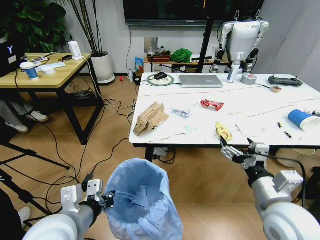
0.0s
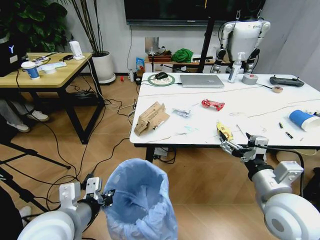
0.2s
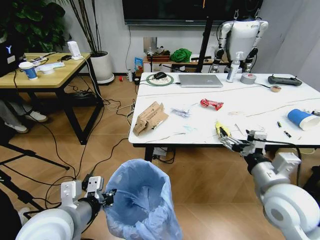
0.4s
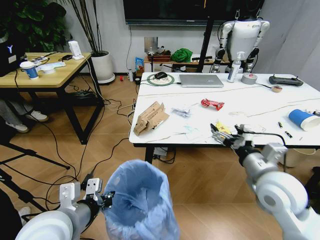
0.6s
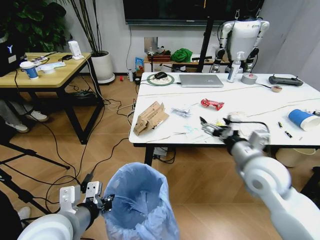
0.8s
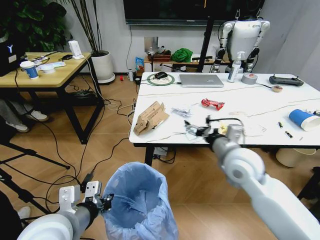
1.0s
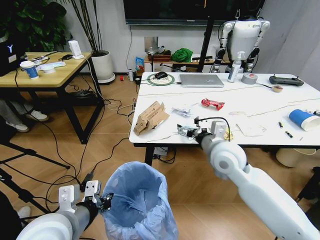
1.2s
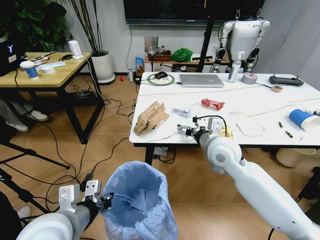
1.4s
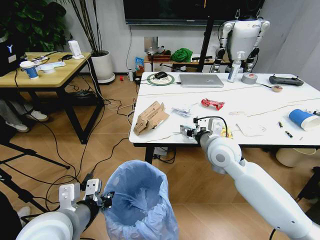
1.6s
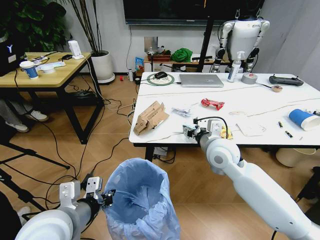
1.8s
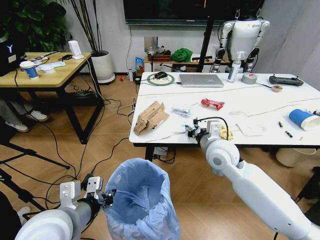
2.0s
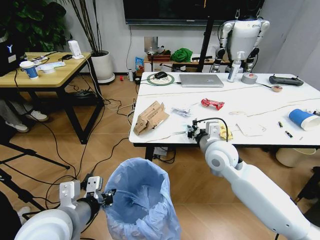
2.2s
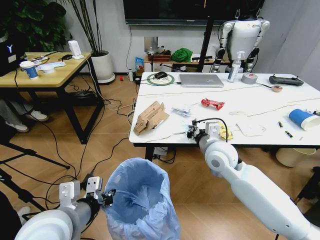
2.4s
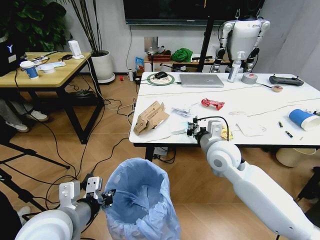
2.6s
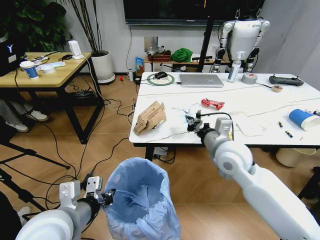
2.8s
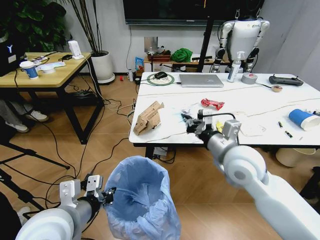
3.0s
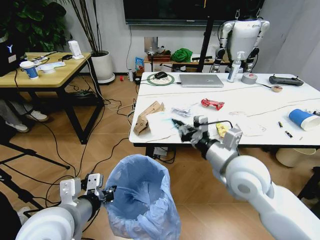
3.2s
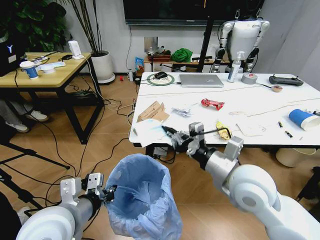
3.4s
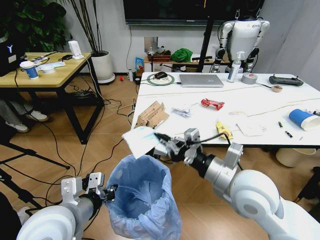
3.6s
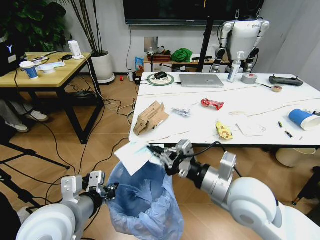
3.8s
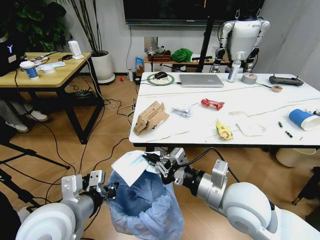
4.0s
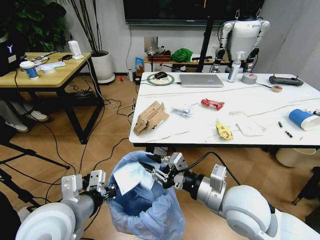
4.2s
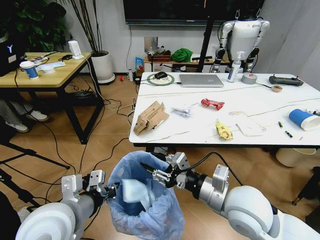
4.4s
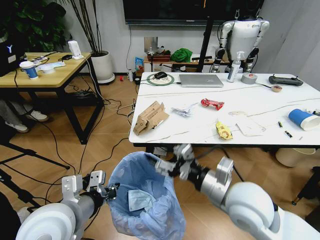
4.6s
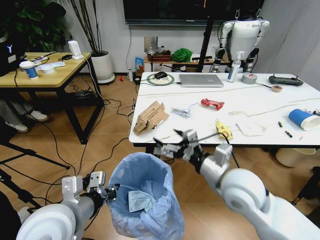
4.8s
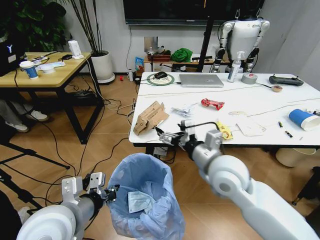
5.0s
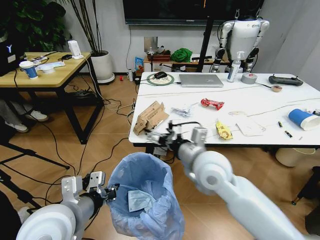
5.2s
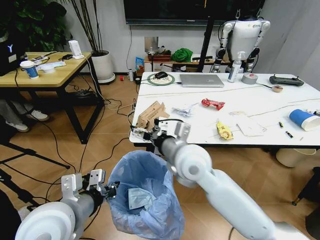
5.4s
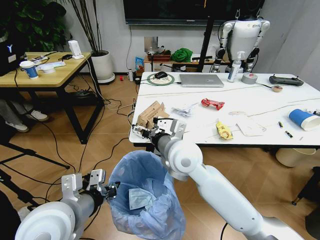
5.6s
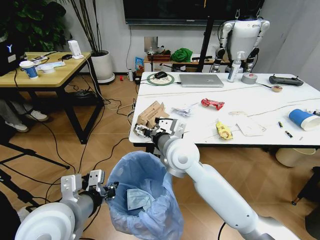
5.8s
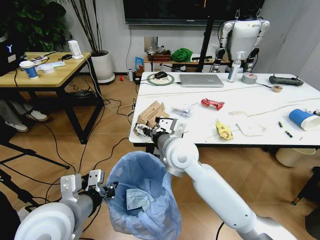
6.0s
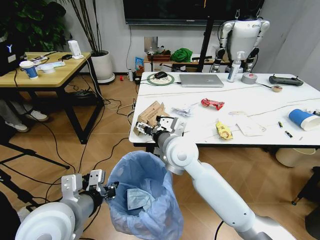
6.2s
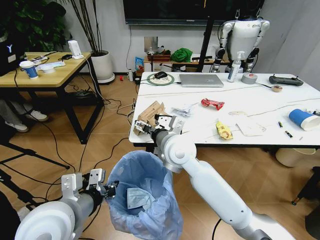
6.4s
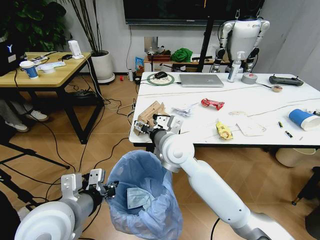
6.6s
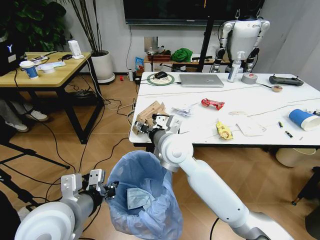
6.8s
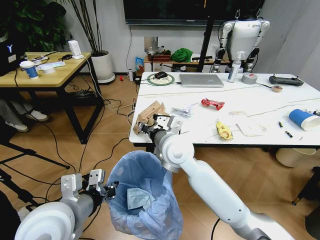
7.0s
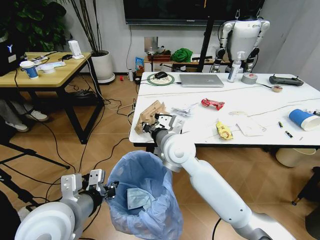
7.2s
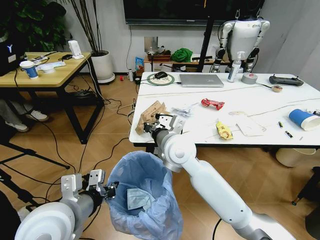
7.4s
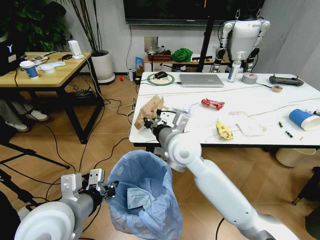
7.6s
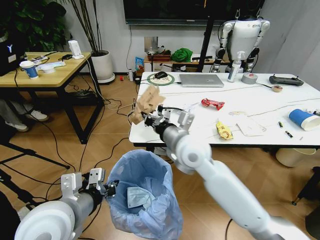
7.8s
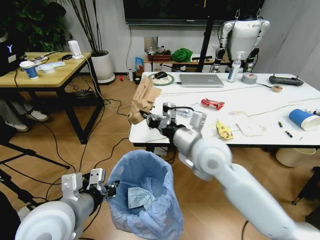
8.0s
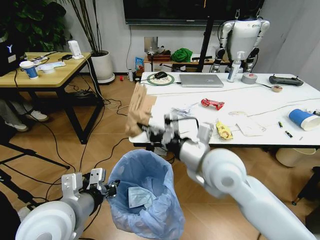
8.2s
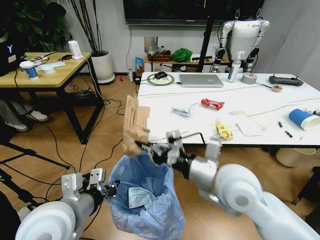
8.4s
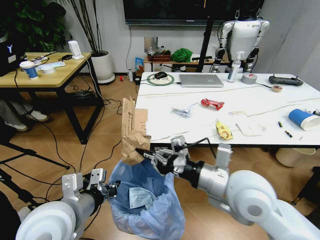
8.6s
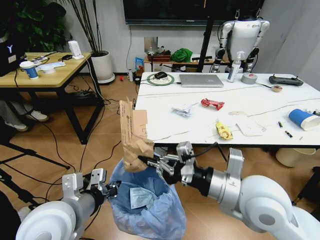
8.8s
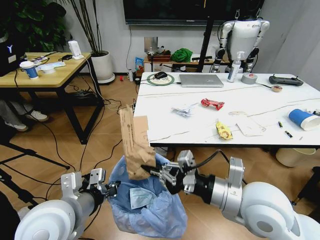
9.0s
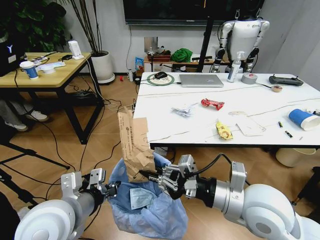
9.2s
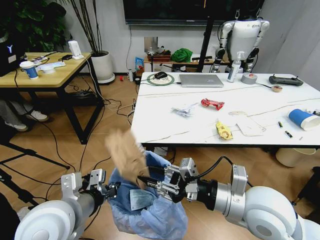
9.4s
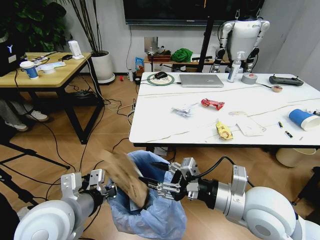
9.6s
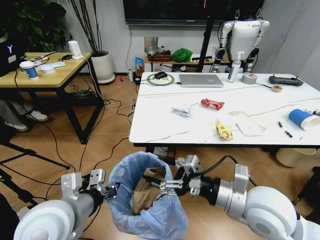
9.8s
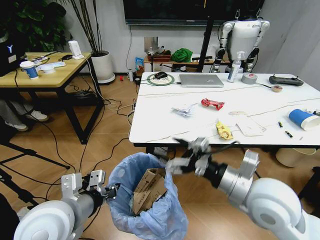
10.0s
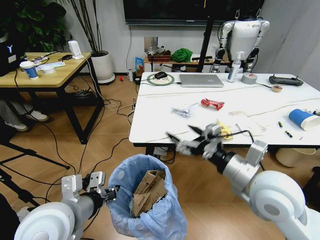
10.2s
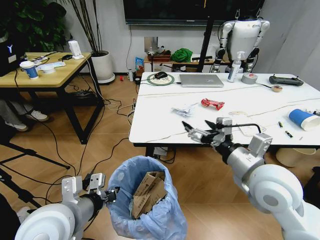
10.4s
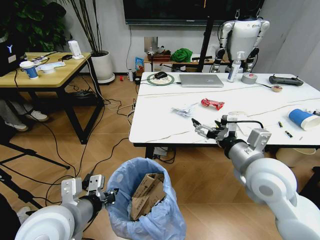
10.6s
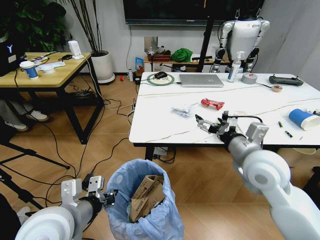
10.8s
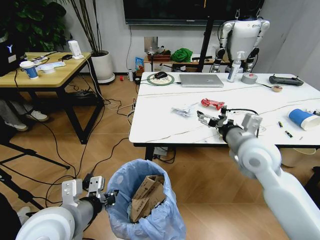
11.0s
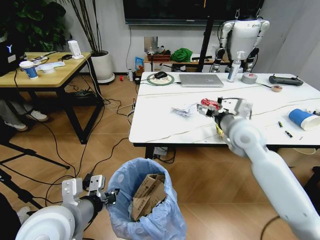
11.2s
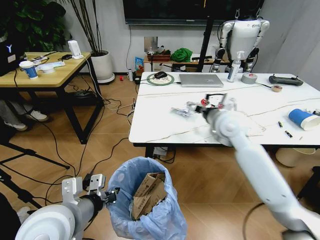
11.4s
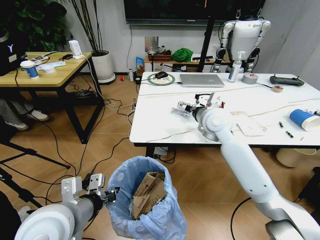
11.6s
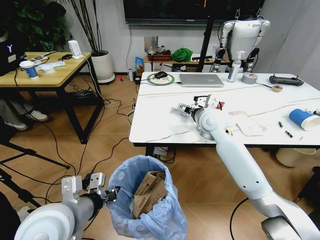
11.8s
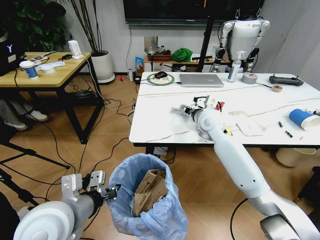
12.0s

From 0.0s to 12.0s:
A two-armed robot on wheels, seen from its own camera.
Task of the whole recording: Pick up the trash bin and place the trash from the table into it.
From 0.0s to 1.6s: The right gripper is displaced forward and to the left by some 20 cm.
From 1.6s to 3.0s: The right gripper heads backward, covering approximately 5 cm, and closes.
From 3.0s to 4.4s: The right gripper heads backward, covering about 10 cm, and opens its fingers.
From 4.4s to 6.0s: The right gripper goes approximately 20 cm forward and to the left, and opens.
From 6.0s to 7.6s: The right gripper closes up.
From 7.6s to 9.0s: The right gripper heads backward and to the right, covering roughly 20 cm.
From 9.0s to 10.4s: The right gripper ends up approximately 5 cm from where it was, and opens up.
From 10.4s to 12.0s: The right gripper is displaced forward by roughly 25 cm.

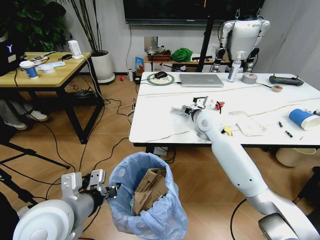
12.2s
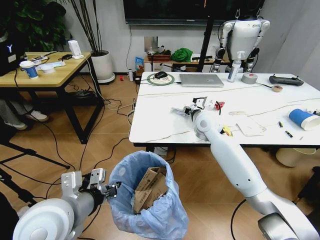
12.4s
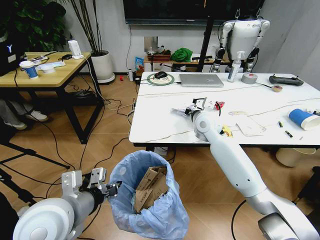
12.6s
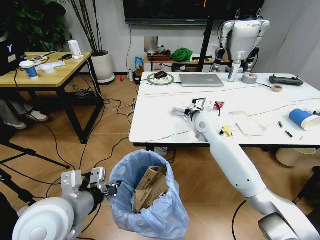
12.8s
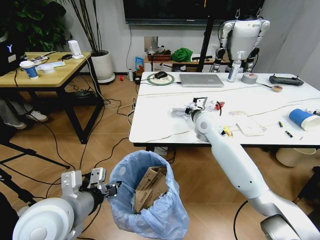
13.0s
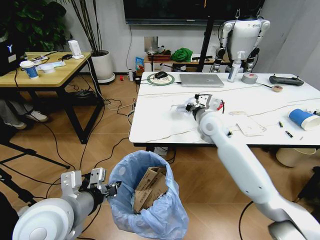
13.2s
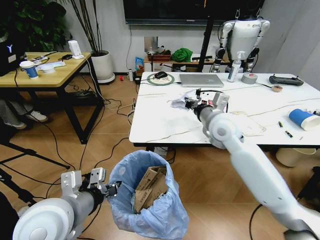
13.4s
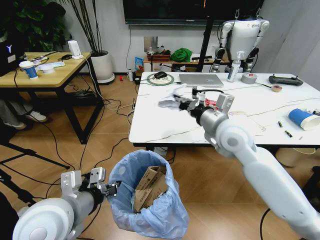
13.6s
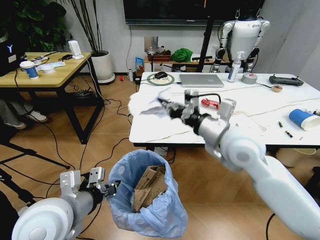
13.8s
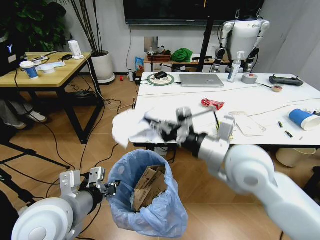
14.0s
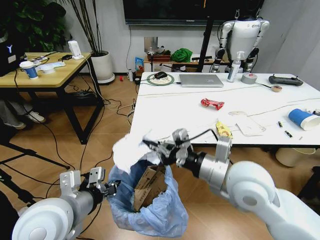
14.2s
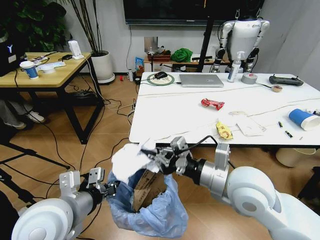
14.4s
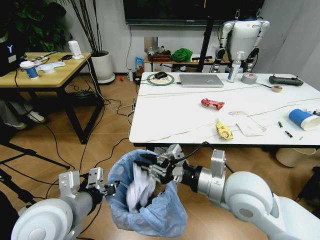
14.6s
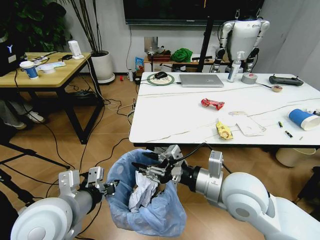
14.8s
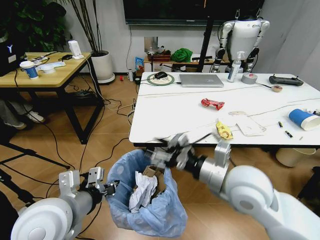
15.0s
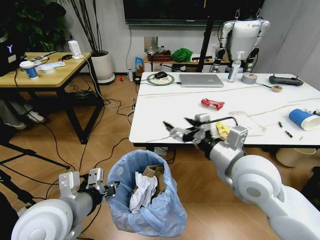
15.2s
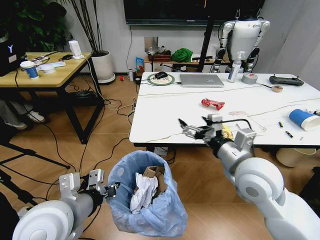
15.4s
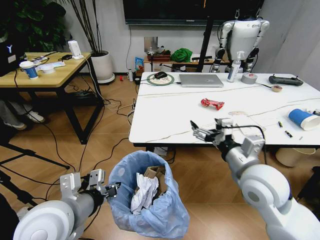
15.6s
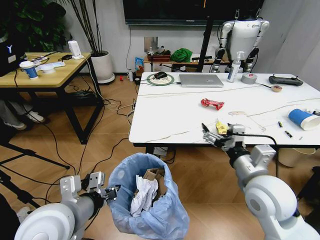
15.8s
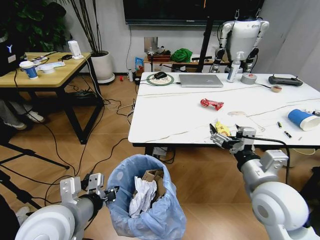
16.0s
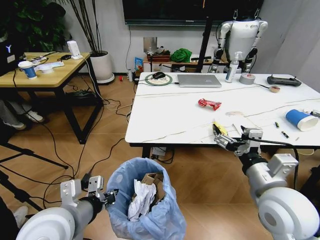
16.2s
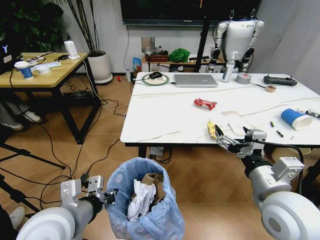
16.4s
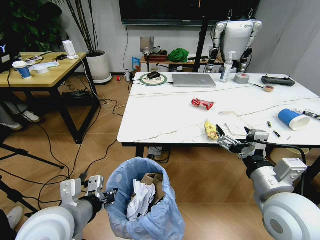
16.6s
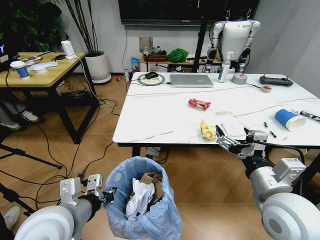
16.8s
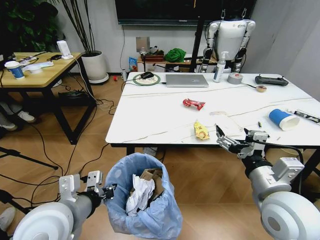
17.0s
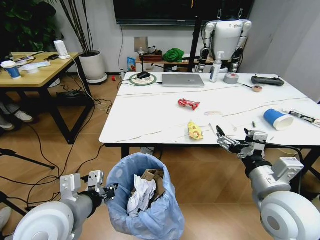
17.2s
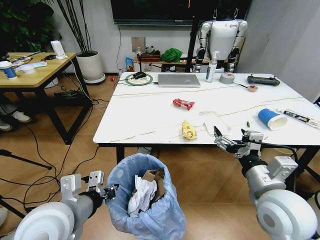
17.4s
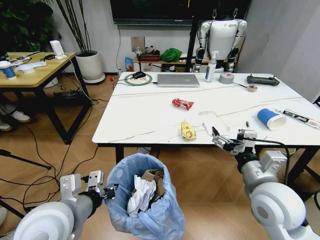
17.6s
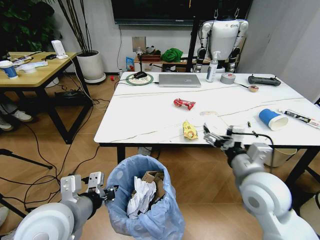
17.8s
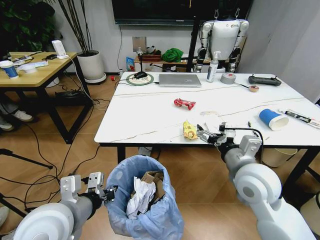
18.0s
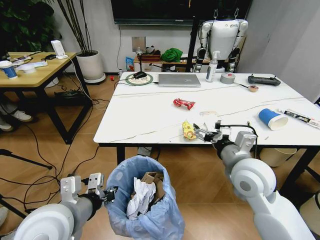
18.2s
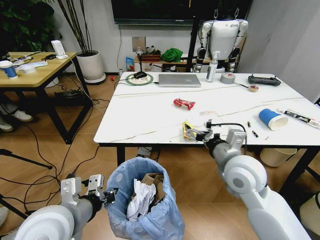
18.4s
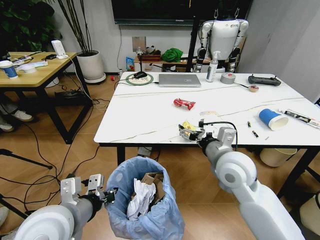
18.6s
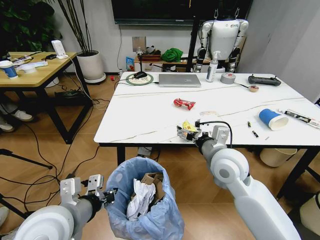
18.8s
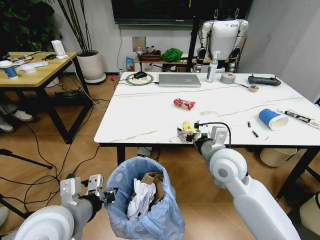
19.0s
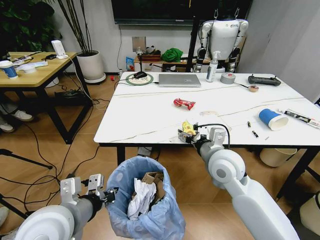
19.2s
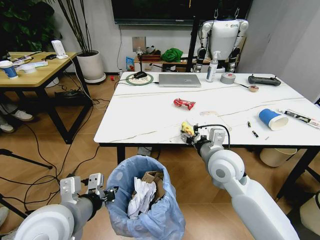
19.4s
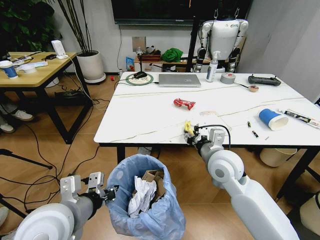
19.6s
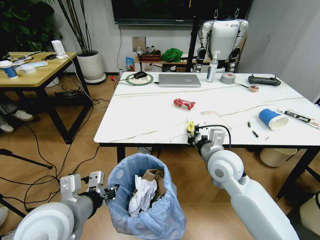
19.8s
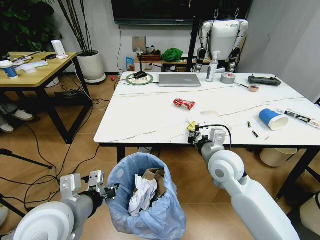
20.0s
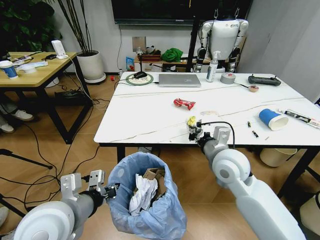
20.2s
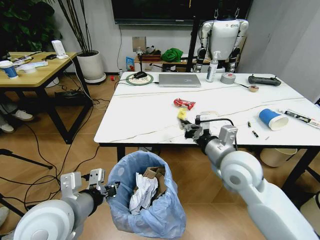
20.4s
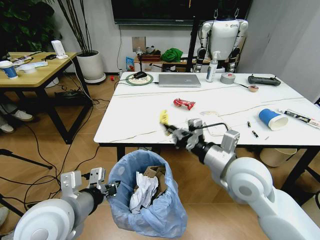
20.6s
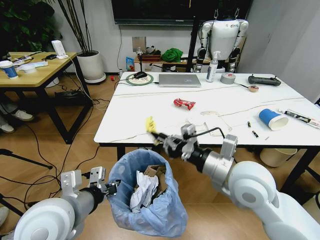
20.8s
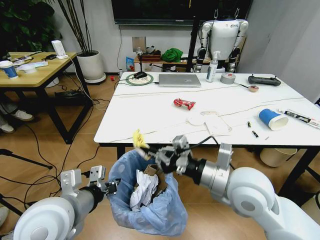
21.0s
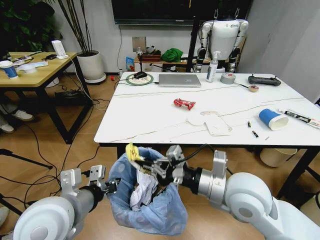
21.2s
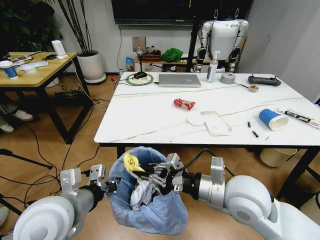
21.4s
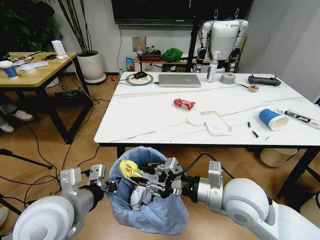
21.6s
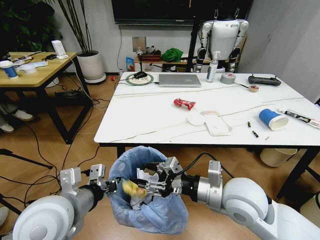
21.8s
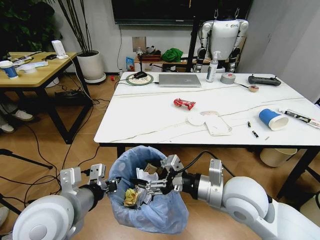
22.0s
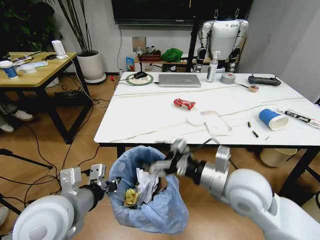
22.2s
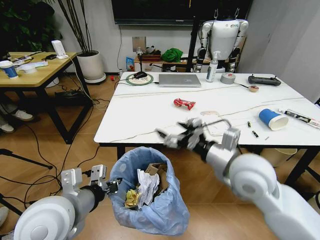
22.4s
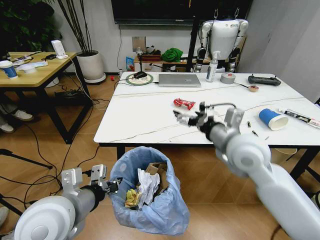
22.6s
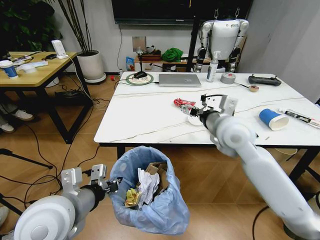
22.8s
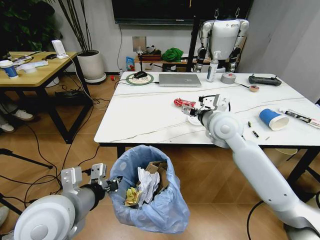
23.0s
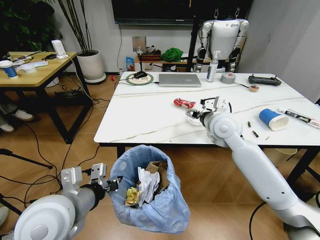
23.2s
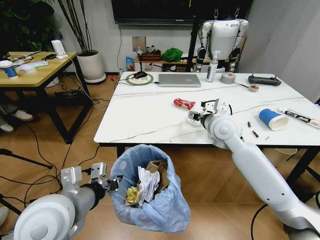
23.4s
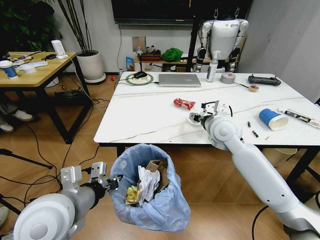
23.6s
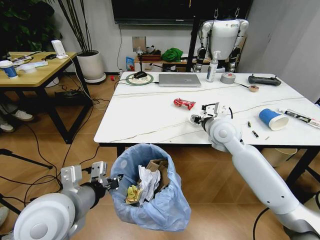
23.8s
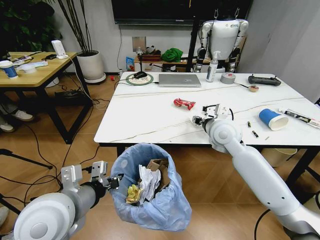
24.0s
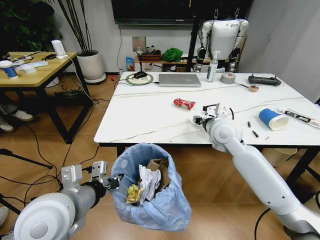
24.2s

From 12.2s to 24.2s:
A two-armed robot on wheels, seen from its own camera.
Task of the whole recording: Pick up the trash bin and place the trash from the table into it.
From 12.2s to 13.8s: The right gripper goes approximately 20 cm backward and upward, and closes up.
From 13.8s to 15.2s: The right gripper shifts about 5 cm backward, and opens its fingers.
From 15.2s to 16.6s: The right gripper shifts about 10 cm backward and to the right.
From 16.6s to 18.2s: The right gripper moves forward, some 10 cm.
From 18.2s to 19.8s: The right gripper moves forward, roughly 5 cm, and closes its fingers.
From 19.8s to 21.2s: The right gripper moves backward, some 10 cm.
From 21.2s to 22.6s: The right gripper goes approximately 5 cm forward, and opens its fingers.
From 22.6s to 24.2s: The right gripper travels forward by about 15 cm, and closes its fingers.
